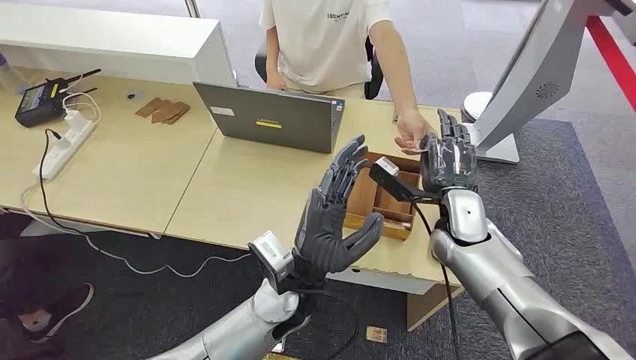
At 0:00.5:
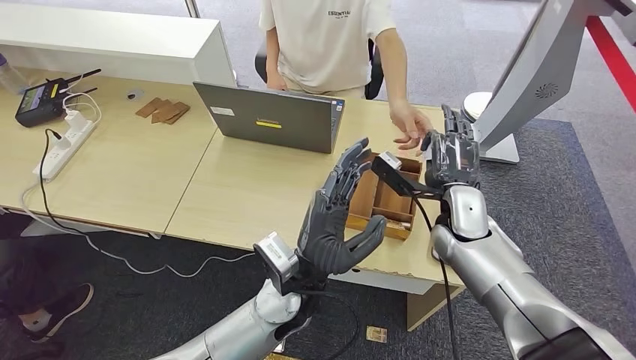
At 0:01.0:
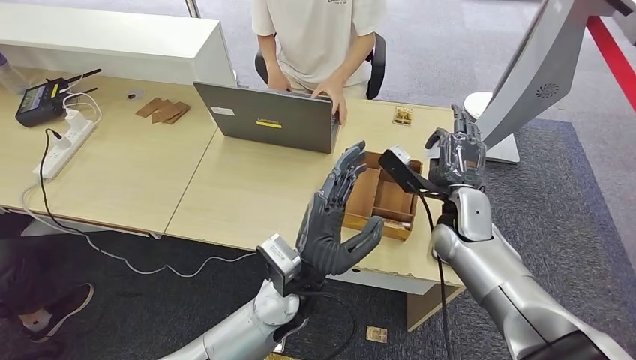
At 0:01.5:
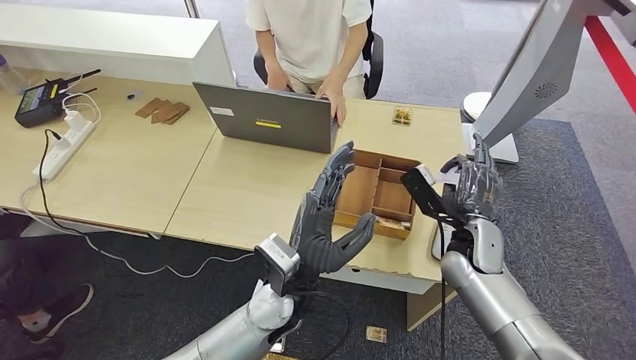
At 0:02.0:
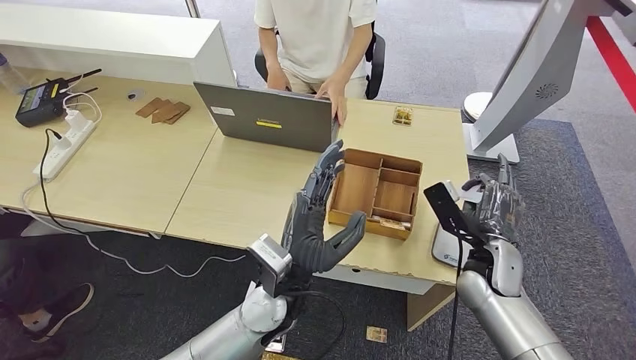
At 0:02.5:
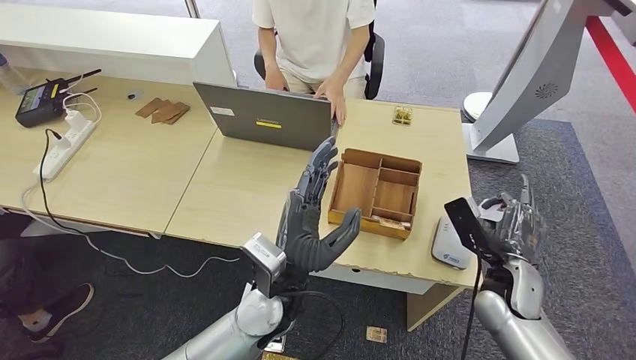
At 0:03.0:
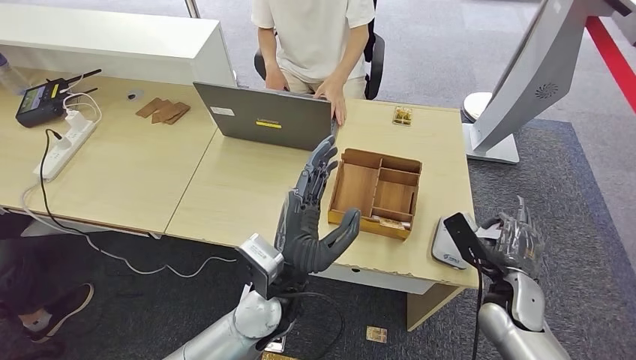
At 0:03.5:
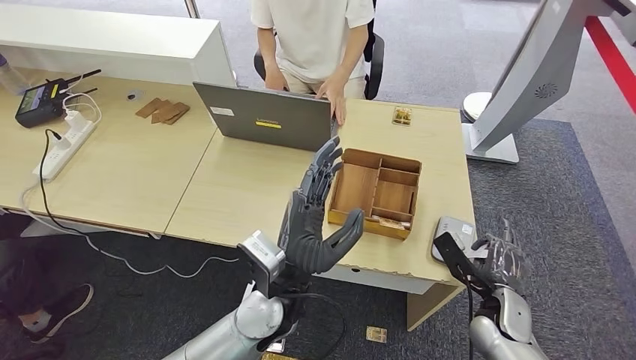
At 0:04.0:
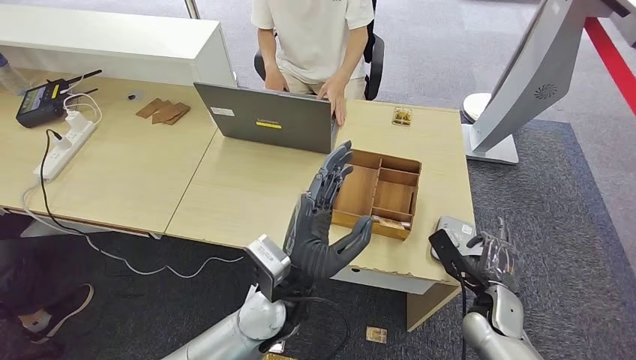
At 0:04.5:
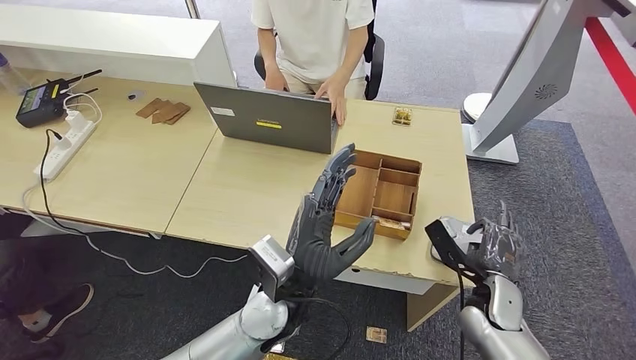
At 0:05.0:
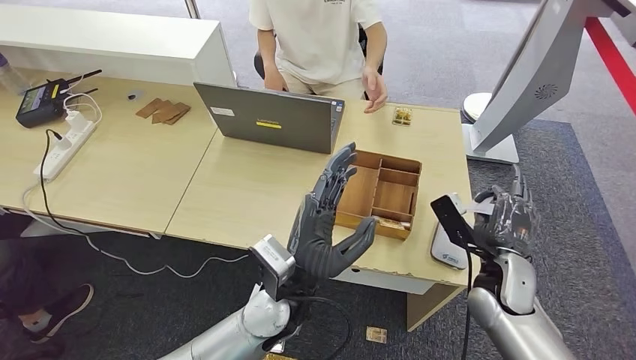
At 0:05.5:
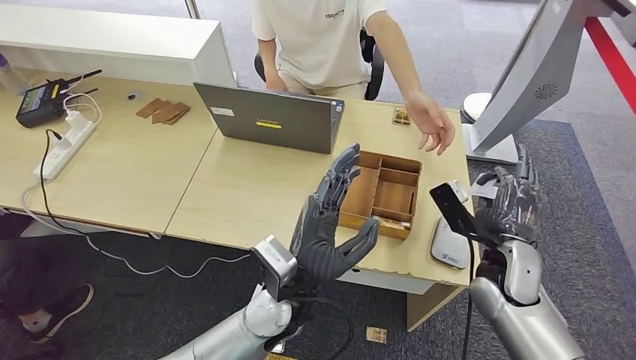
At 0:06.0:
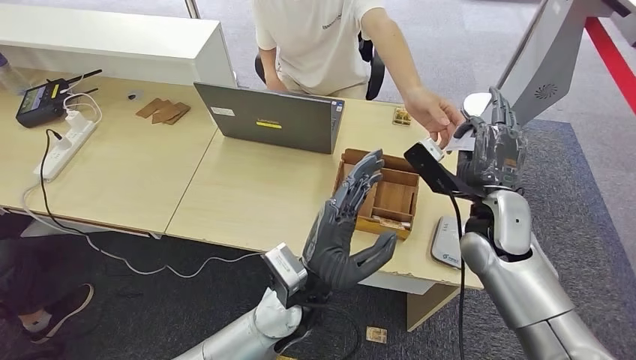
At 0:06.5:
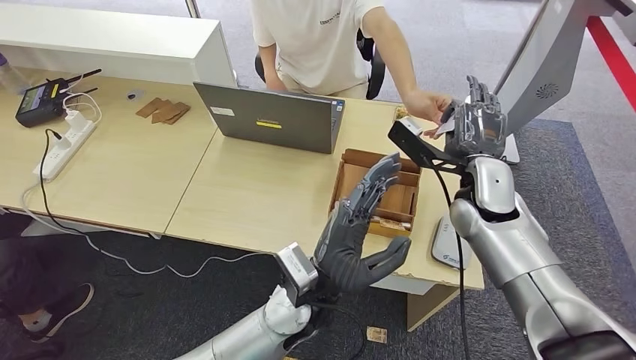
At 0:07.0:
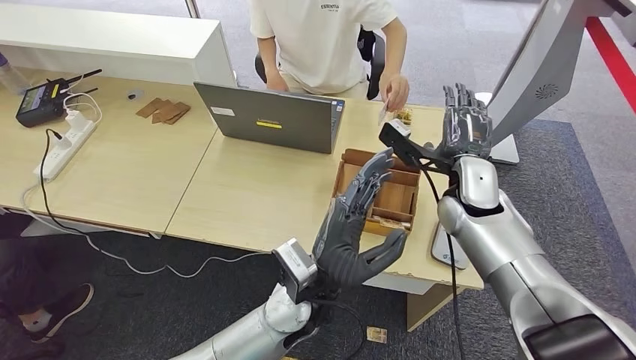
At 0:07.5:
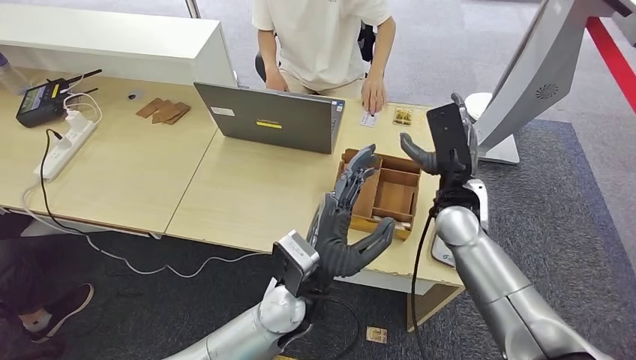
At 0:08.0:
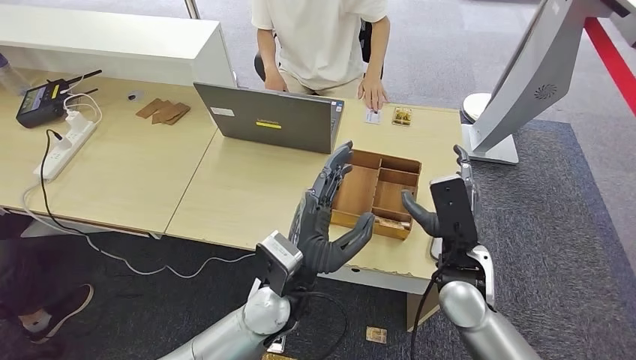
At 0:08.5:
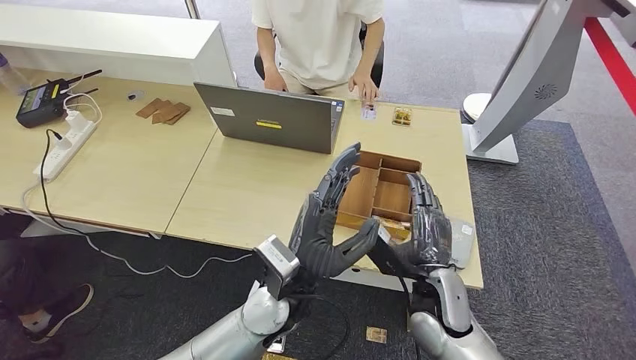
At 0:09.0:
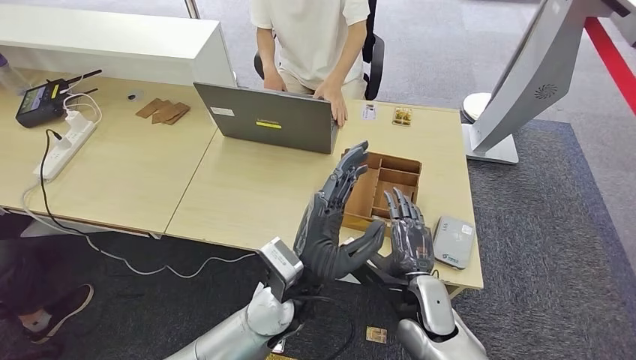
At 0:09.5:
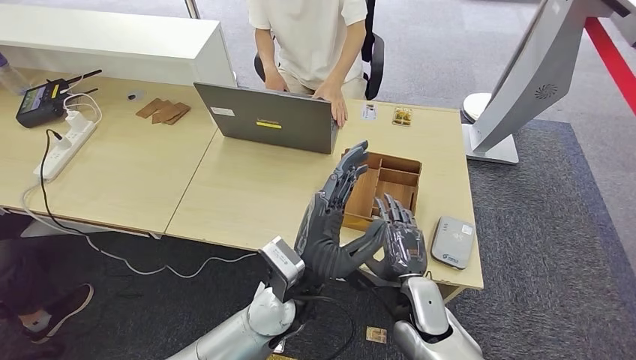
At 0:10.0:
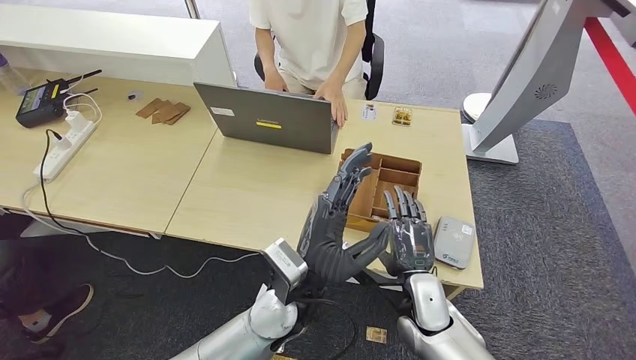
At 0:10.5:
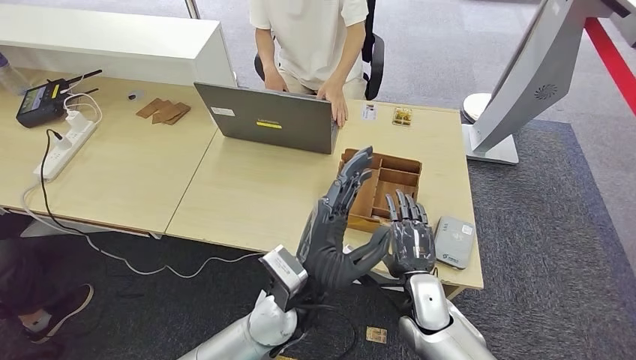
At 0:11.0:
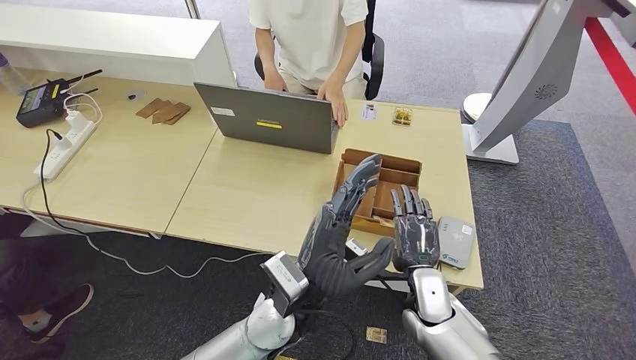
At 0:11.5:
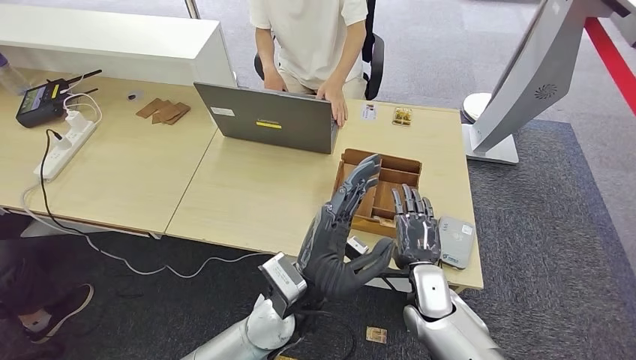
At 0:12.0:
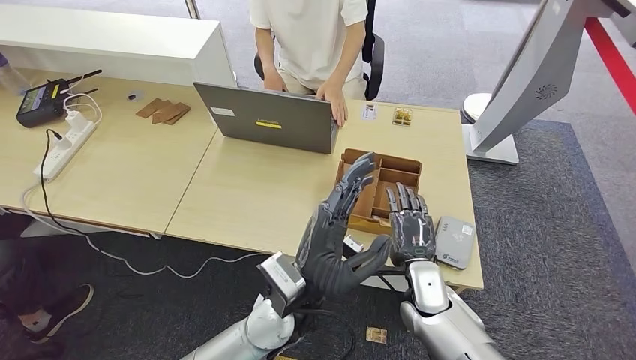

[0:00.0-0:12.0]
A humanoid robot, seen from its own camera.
Step, 0:00.0 to 0:01.5: Take the ID card from the person's hand.
Step, 0:02.0 to 0:04.5: Place the ID card on the card reader.
Step, 0:05.0 to 0:07.5: Hand the ID card to the person.
0:02.0 to 0:04.0: The right hand moves downward and backward, roughly 10 cm.
0:04.0 to 0:06.0: The right hand shifts some 20 cm upward and forward.
0:06.0 to 0:08.0: The right hand moves backward and downward, approximately 10 cm.
0:08.0 to 0:10.0: The right hand moves downward, about 10 cm.
0:10.0 to 0:12.0: The hands move only a little.

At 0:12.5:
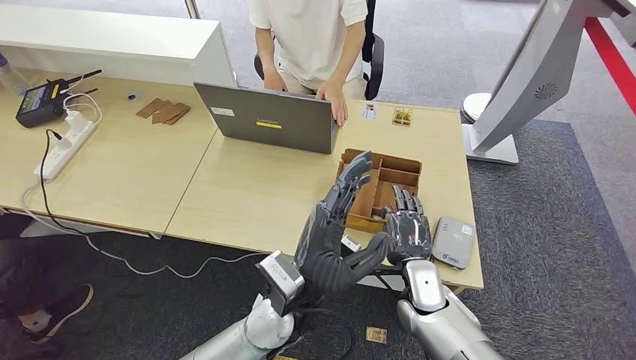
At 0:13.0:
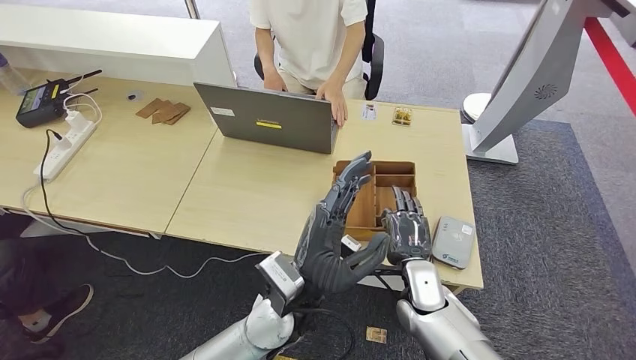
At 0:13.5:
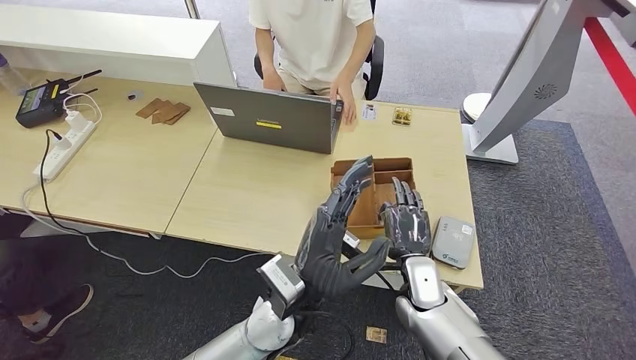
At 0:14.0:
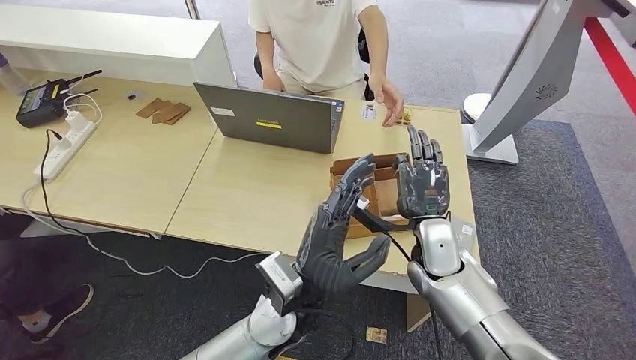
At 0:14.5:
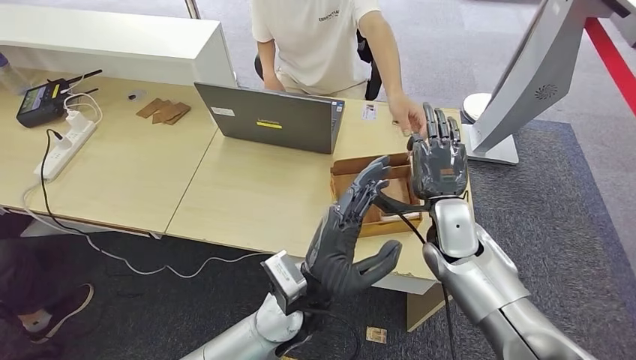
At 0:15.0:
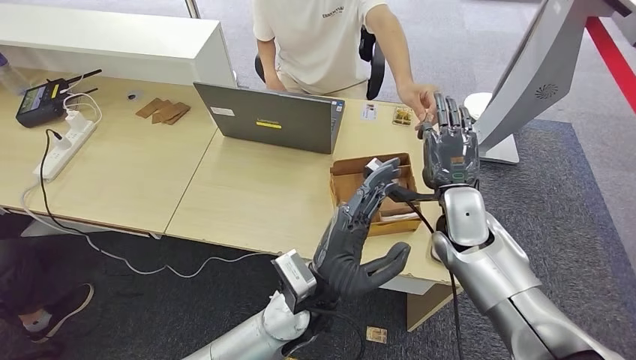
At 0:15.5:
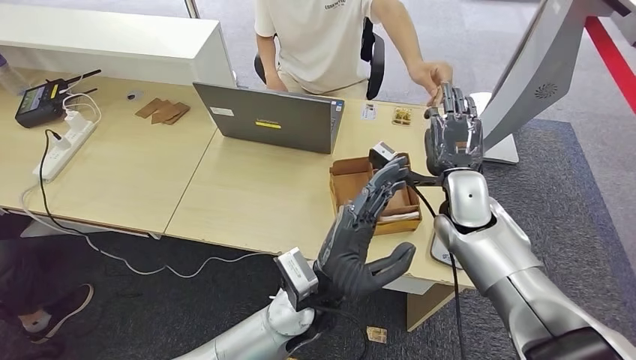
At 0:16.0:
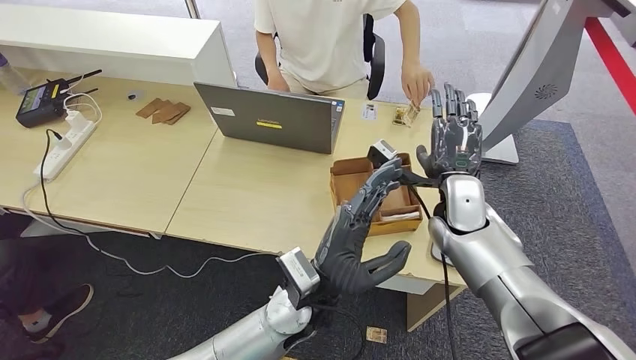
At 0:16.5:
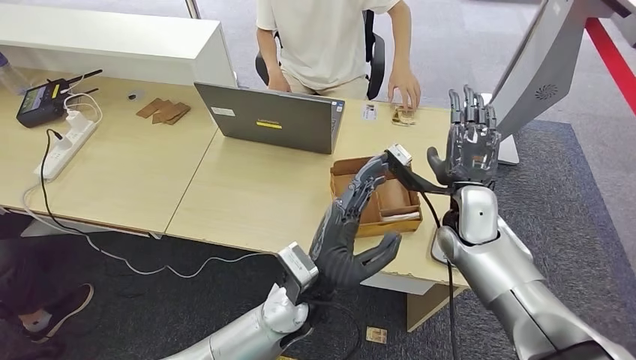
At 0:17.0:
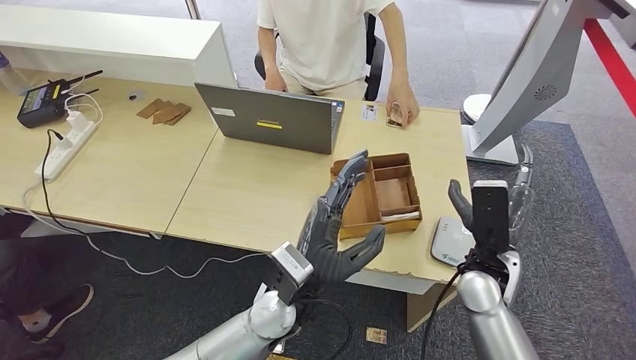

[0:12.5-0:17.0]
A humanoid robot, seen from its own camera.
Step, 0:12.5 to 0:14.5: Pick up the room key from the key card box.
Step, 0:15.0 to 0:17.0: Hand the room key to the person.
0:12.5 to 0:14.5: The right hand is displaced upward and forward by some 15 cm.
0:14.5 to 0:17.0: The right hand travels backward by some 5 cm.
